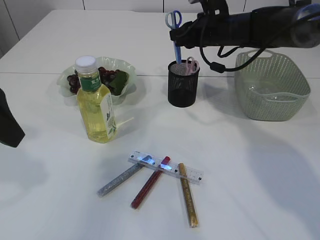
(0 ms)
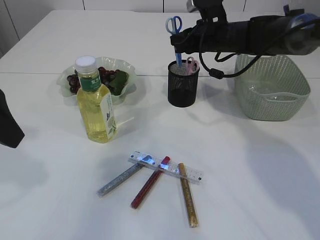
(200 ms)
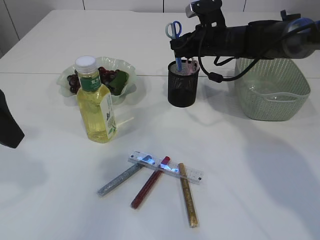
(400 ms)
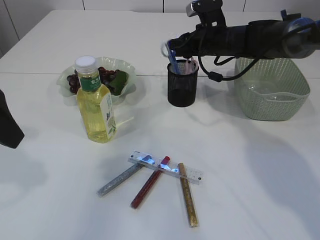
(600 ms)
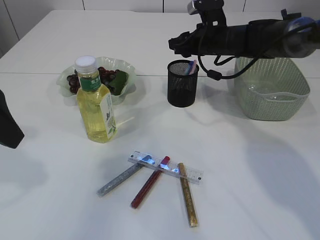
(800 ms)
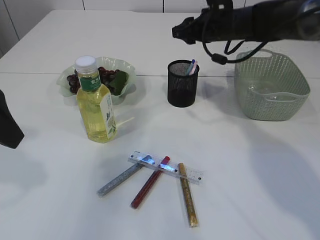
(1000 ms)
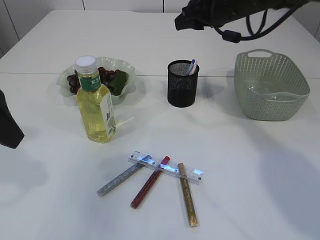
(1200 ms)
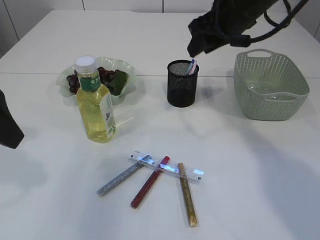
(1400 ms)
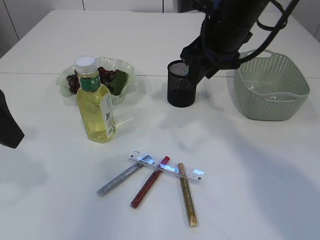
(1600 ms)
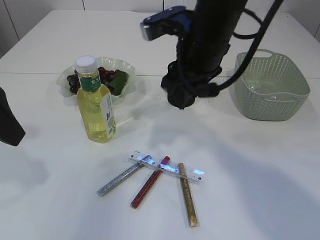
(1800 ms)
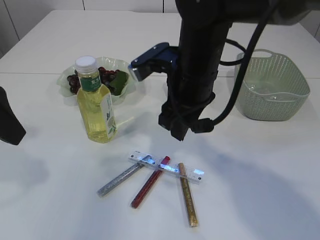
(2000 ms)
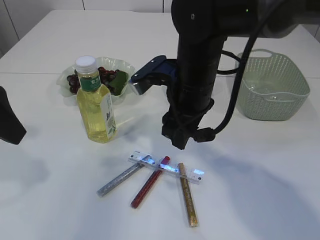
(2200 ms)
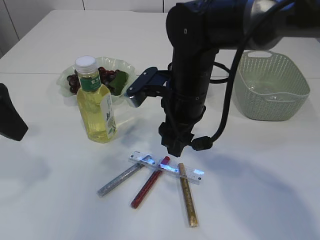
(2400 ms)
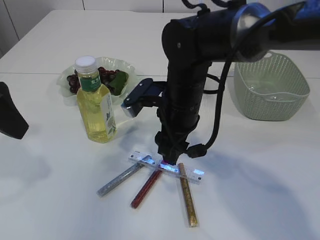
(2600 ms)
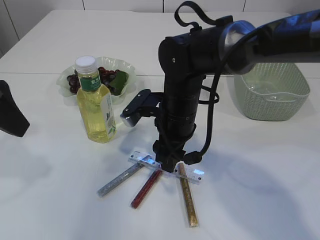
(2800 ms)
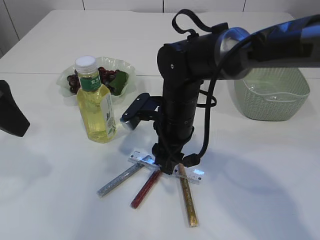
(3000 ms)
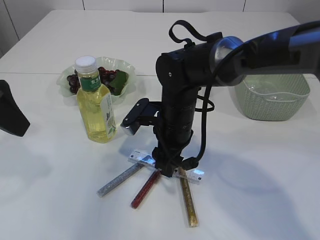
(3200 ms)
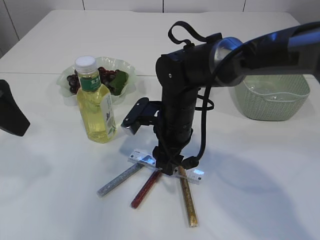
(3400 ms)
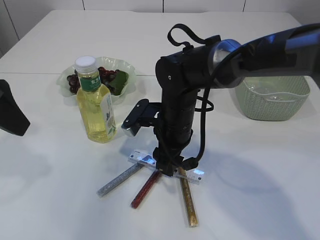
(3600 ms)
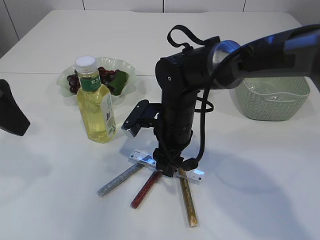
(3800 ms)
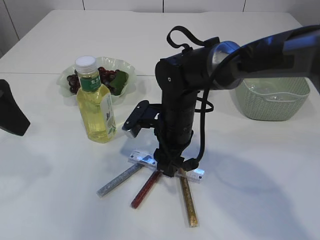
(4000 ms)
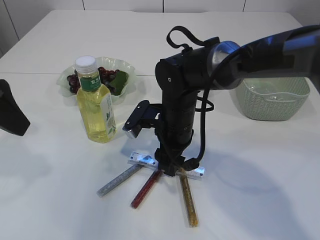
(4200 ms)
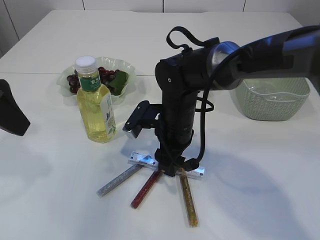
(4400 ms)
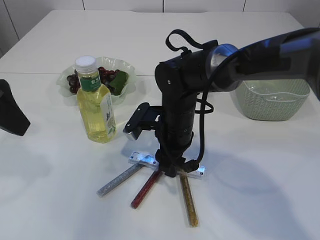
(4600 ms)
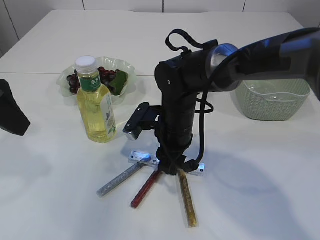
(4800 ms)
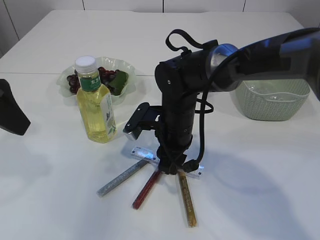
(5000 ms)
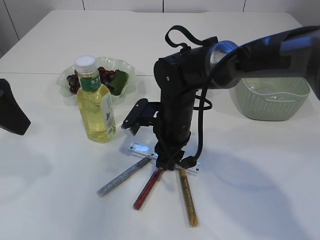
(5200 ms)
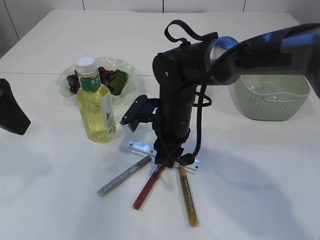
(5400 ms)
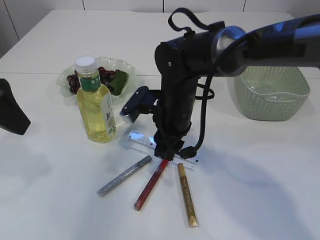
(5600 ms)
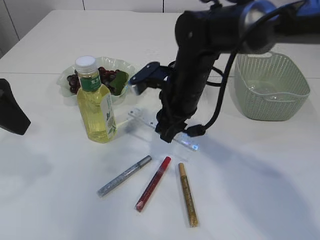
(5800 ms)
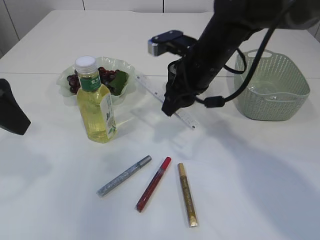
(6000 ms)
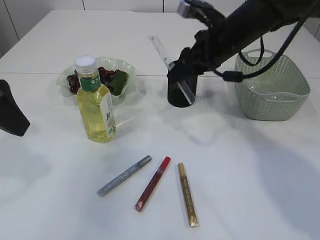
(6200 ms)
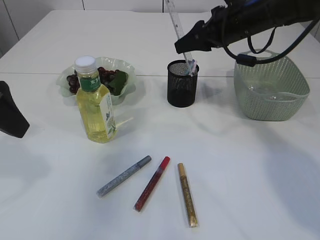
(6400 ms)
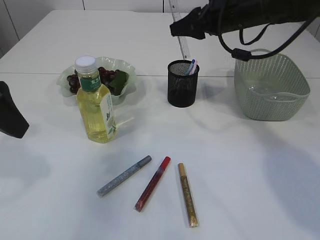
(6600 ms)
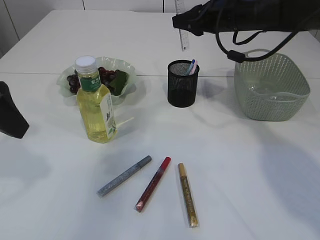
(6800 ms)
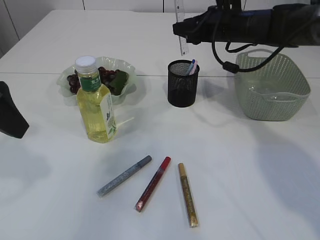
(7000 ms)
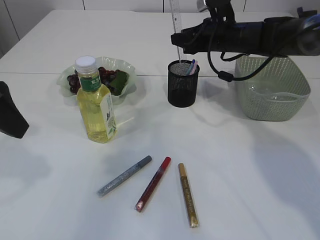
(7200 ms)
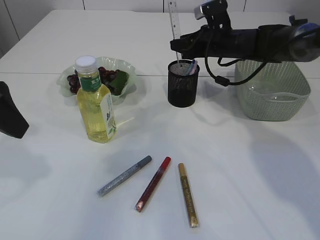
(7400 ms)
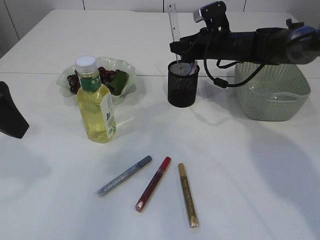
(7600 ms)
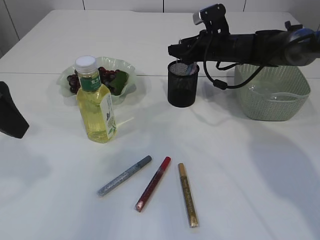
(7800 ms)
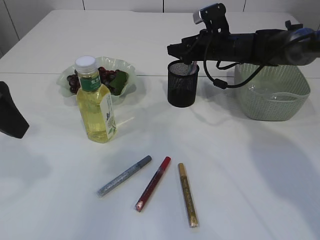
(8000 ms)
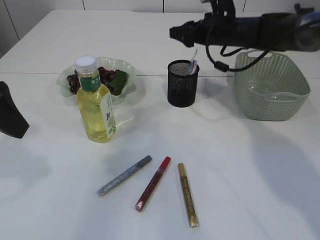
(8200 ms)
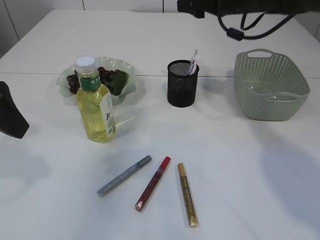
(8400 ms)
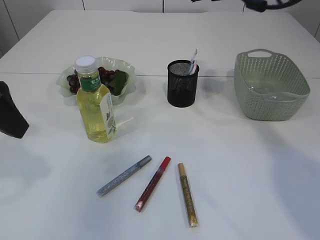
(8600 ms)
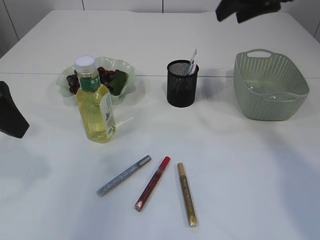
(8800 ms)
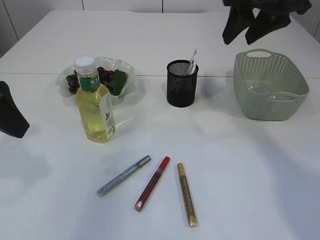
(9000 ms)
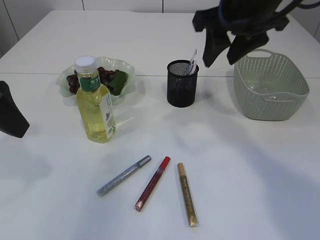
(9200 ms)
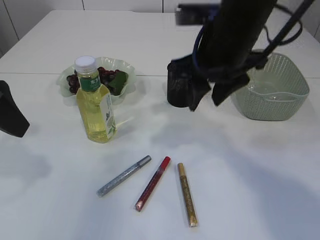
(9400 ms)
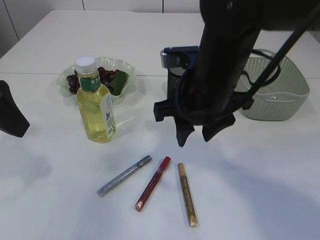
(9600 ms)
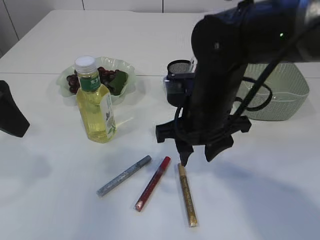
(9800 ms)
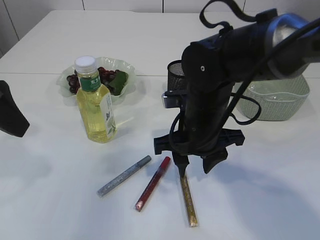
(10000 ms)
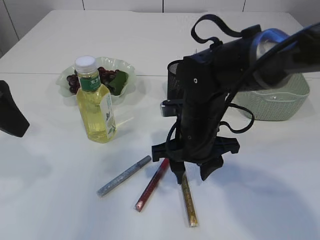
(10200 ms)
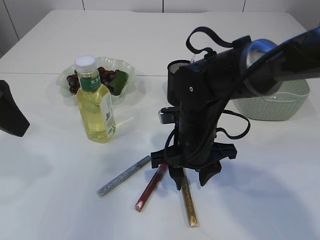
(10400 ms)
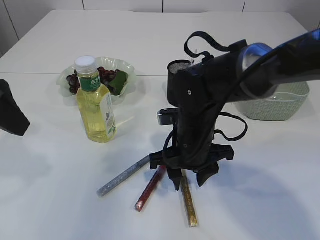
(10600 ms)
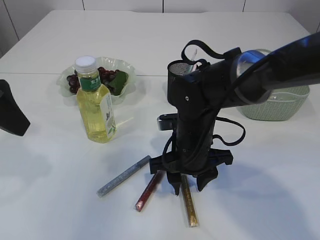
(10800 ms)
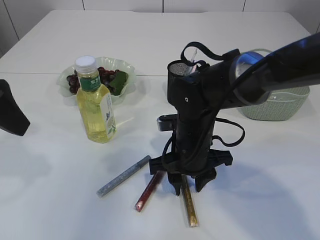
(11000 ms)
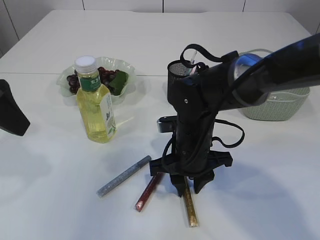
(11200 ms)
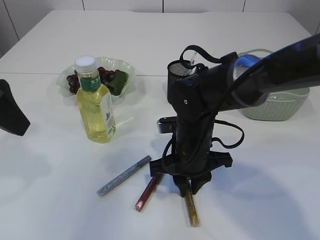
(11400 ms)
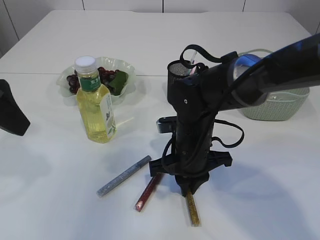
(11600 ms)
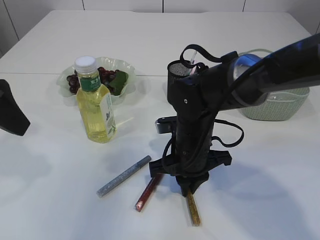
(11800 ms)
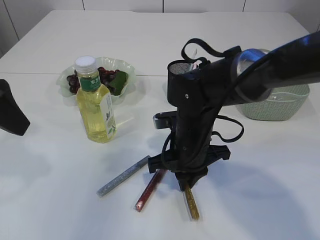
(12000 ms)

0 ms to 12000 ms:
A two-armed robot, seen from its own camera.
Step, 1200 ms to 6000 ms: pick up the ruler.
Step, 6200 ms to 8200 ms: Place the ruler into the pen holder.
0 ms to 1600 ms: The right gripper goes about 15 cm backward and upward.
1600 ms to 3000 ms: The right gripper moves downward and to the left, about 15 cm.
3000 ms to 4400 ms: The grippers move only a little.
4400 ms to 6000 ms: The right gripper heads upward, covering some 10 cm, and closes.
6000 ms to 7600 ms: The right gripper travels forward and to the right by roughly 15 cm.
7600 ms to 9000 ms: The right gripper moves upward and backward, roughly 20 cm.
9000 ms to 10400 ms: The right gripper goes about 25 cm downward and to the left.
10400 ms to 12000 ms: The right gripper closes.

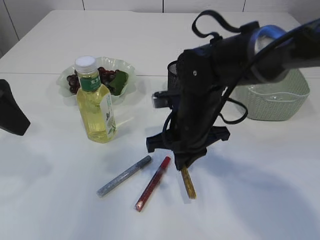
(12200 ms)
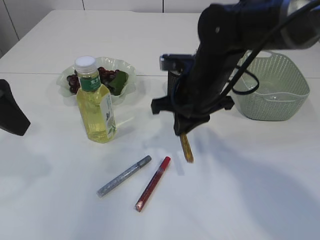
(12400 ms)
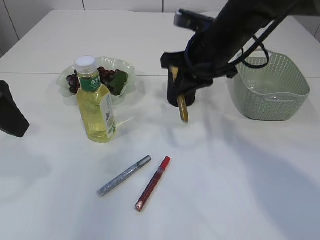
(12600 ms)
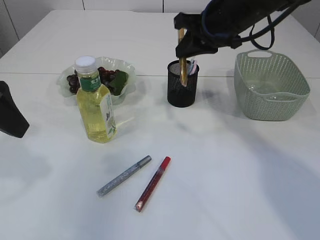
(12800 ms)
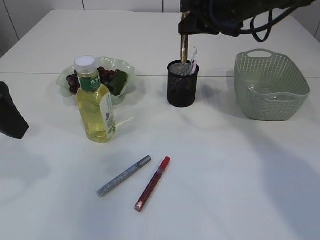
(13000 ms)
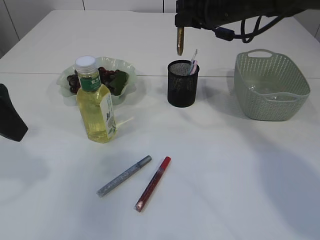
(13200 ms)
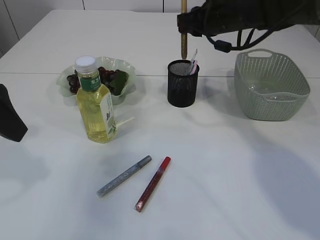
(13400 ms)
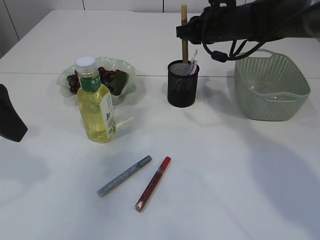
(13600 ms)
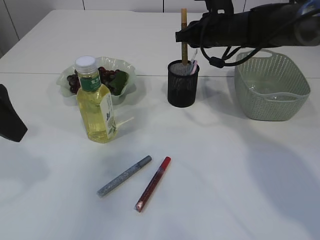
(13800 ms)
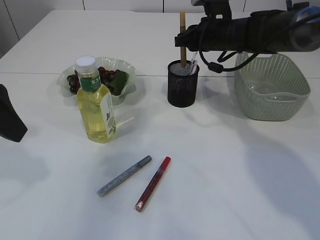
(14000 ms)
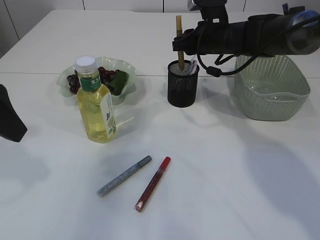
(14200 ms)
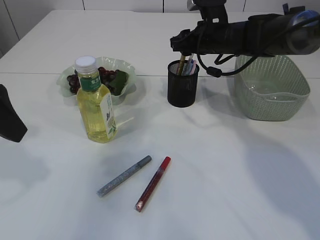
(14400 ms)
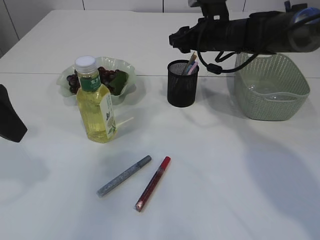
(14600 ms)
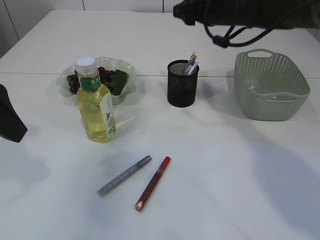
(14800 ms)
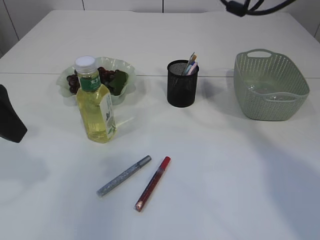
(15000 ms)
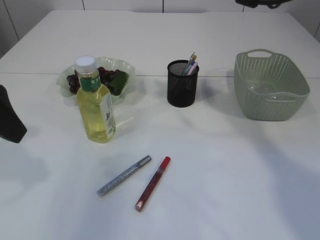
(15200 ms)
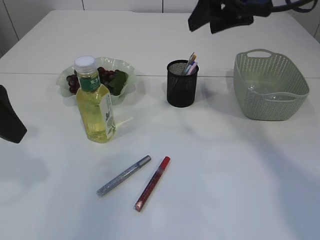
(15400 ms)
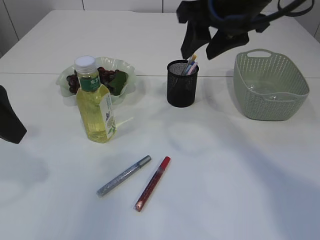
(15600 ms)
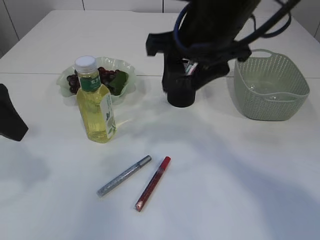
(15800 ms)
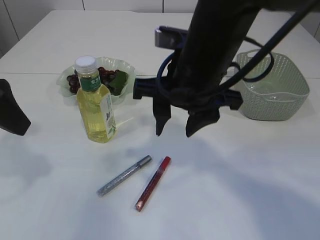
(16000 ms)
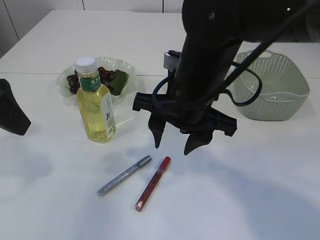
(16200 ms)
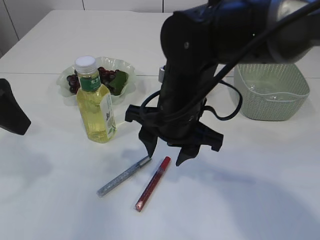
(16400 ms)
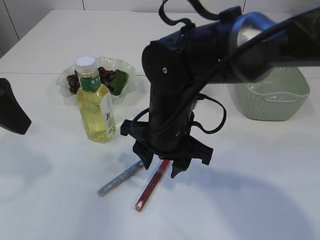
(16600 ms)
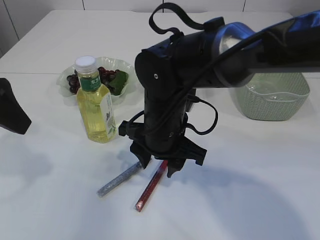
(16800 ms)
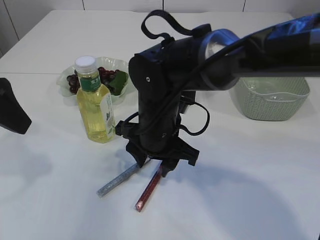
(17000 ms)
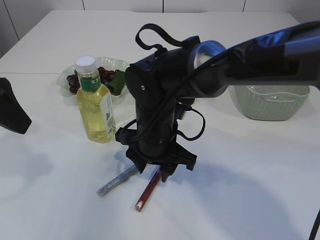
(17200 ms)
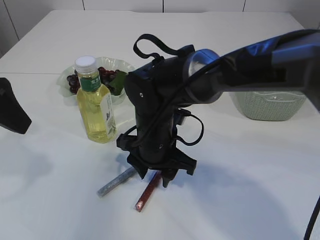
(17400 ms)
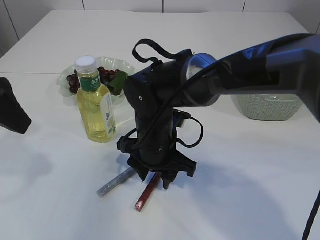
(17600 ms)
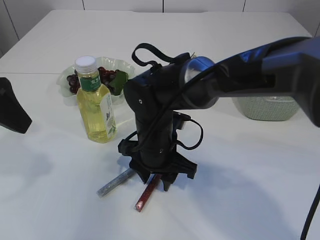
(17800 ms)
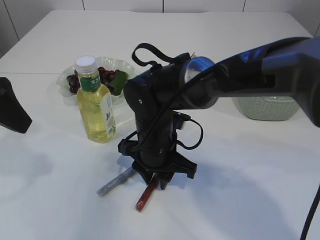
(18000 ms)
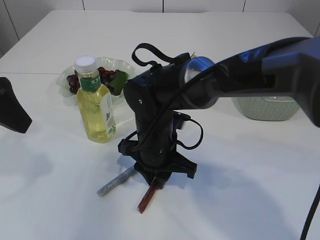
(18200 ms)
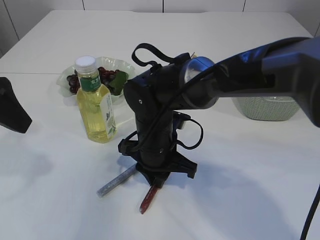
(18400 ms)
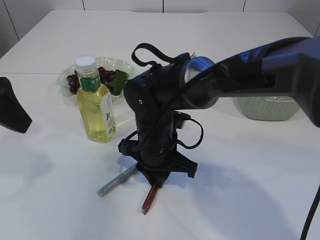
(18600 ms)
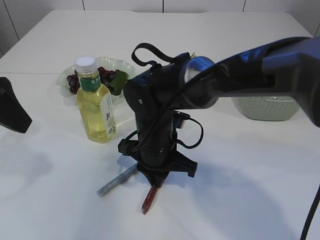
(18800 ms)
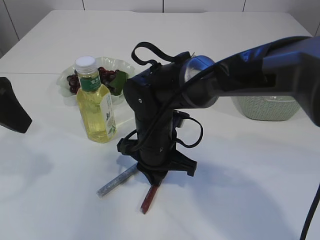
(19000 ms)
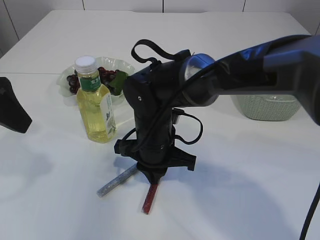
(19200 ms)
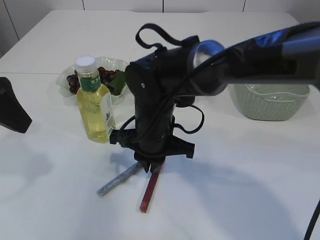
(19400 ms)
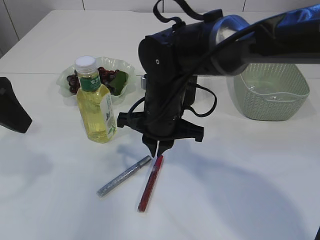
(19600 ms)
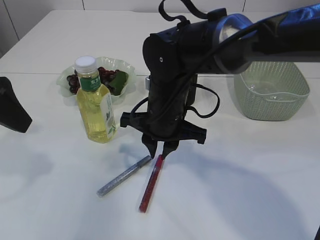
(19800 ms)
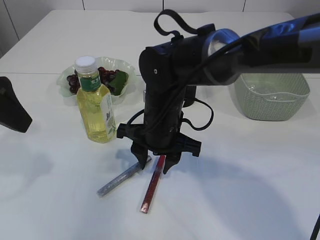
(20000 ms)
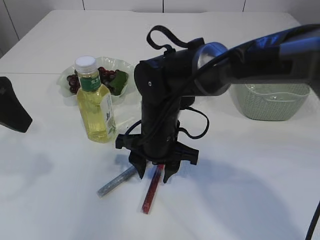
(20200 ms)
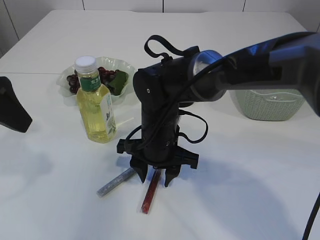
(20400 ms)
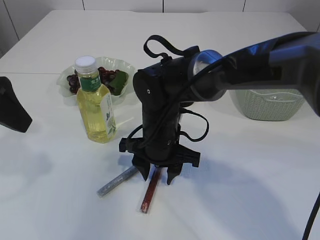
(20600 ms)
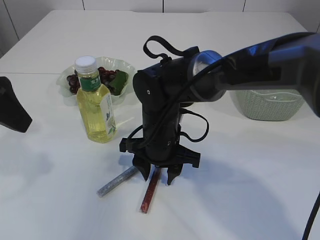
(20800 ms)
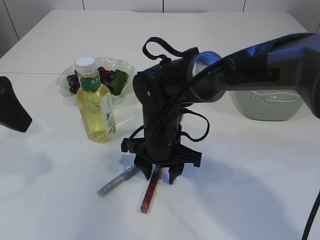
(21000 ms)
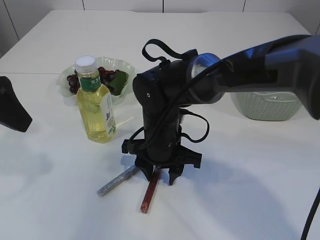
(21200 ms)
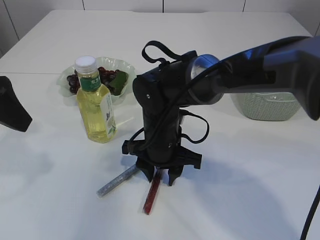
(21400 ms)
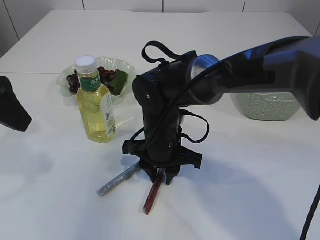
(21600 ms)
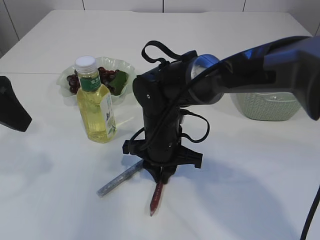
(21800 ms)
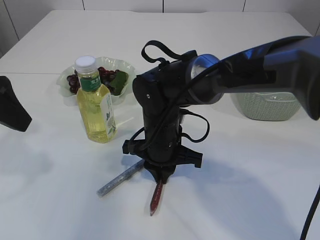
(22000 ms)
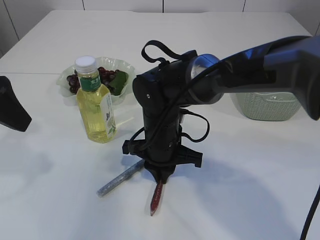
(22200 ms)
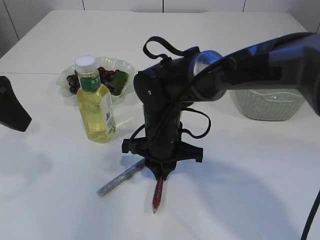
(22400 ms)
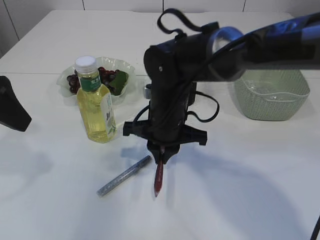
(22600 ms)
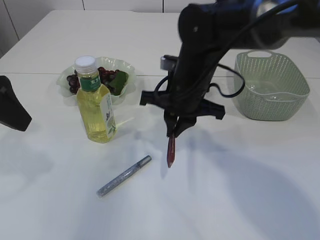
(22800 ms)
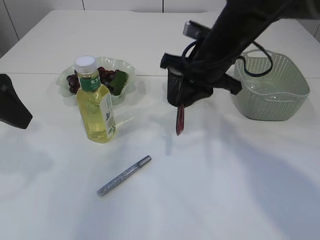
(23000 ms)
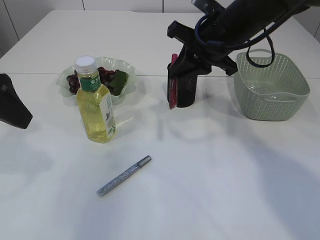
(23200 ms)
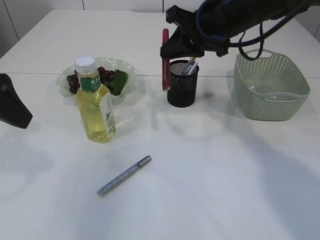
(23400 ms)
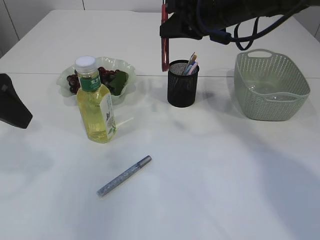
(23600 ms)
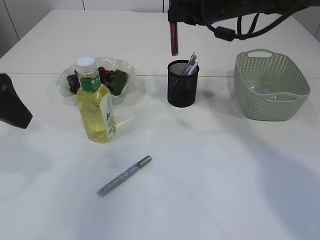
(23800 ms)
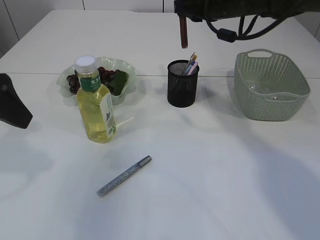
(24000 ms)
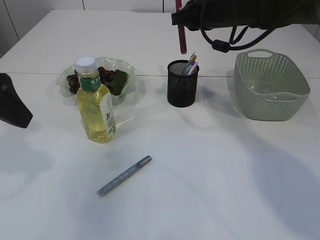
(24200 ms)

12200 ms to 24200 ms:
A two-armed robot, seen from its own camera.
Step, 12600 ms to 14600 ms: place the yellow glue into the pen holder.
Step, 14800 ms to 22800 ms: pick up the red glue.
12200 ms to 13800 ms: The right gripper shifts approximately 20 cm forward, to the right and upward.
13800 ms to 15200 ms: The right gripper shifts roughly 15 cm upward and backward, and opens.
15200 ms to 16600 ms: The right gripper moves downward, to the left and backward, some 25 cm.
16600 ms to 18200 ms: The right gripper is displaced downward by roughly 5 cm, and closes.
18200 ms to 19800 ms: The right gripper moves upward, roughly 5 cm.
19800 ms to 21200 ms: The right gripper travels downward by roughly 5 cm, and opens.
21200 ms to 22600 ms: The right gripper closes.
22600 ms to 24200 ms: The right gripper moves forward, upward and to the right, roughly 20 cm.
